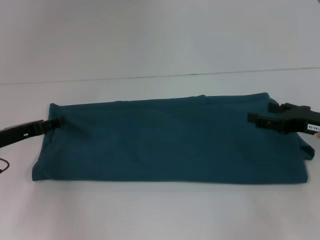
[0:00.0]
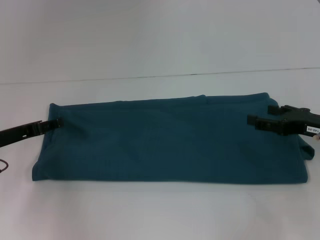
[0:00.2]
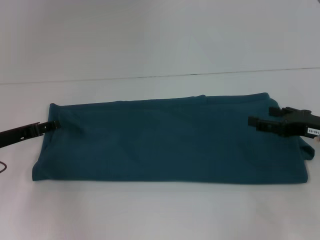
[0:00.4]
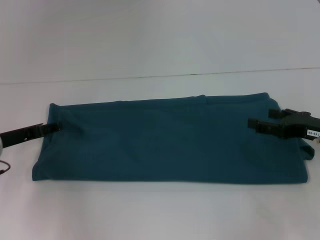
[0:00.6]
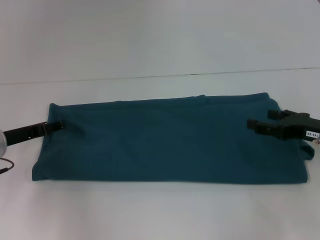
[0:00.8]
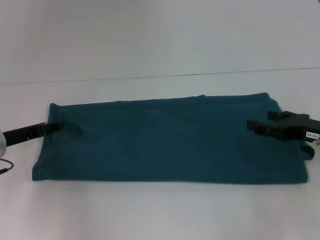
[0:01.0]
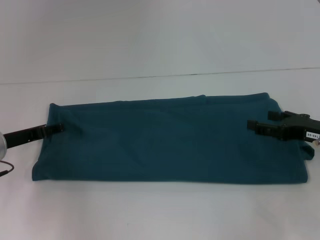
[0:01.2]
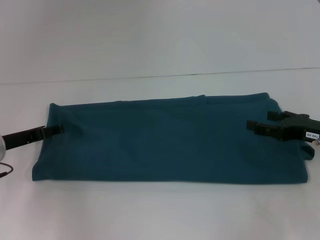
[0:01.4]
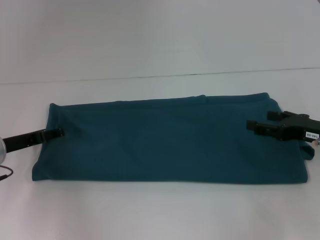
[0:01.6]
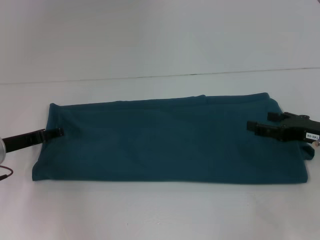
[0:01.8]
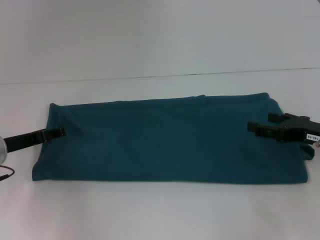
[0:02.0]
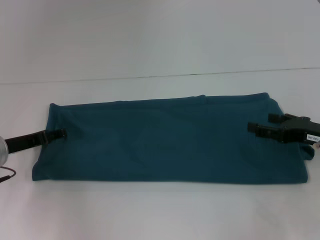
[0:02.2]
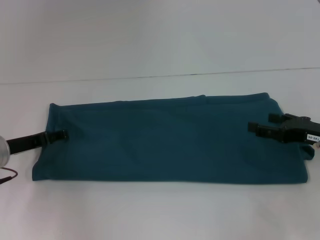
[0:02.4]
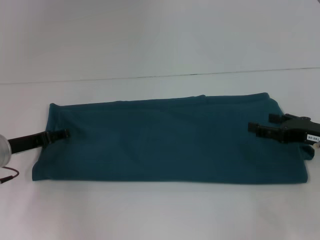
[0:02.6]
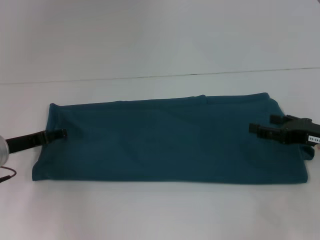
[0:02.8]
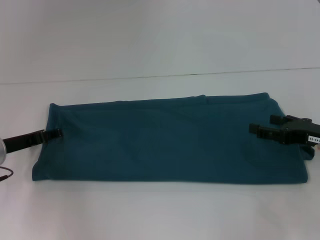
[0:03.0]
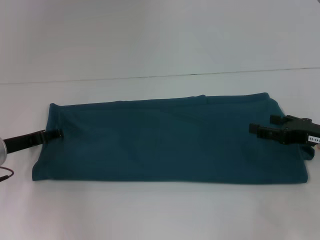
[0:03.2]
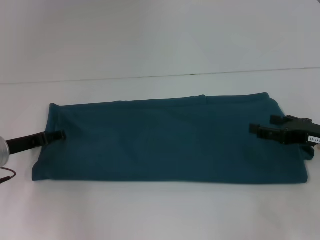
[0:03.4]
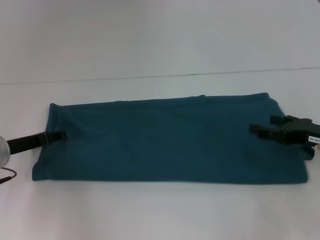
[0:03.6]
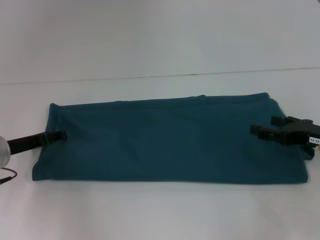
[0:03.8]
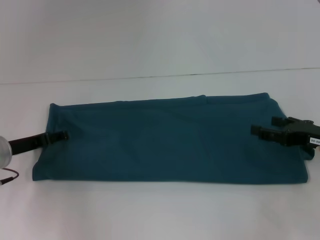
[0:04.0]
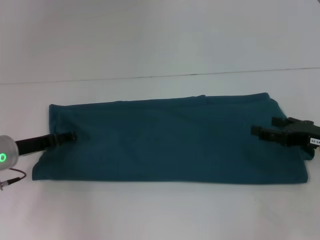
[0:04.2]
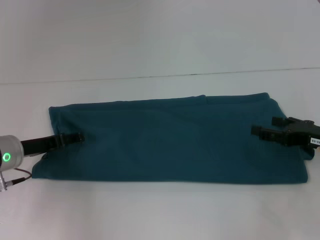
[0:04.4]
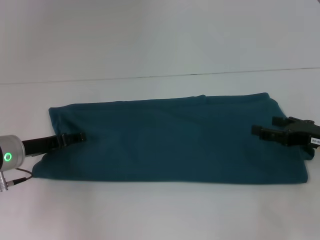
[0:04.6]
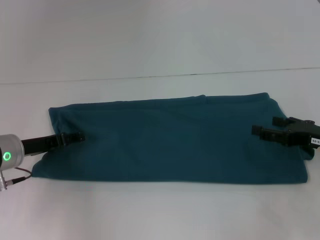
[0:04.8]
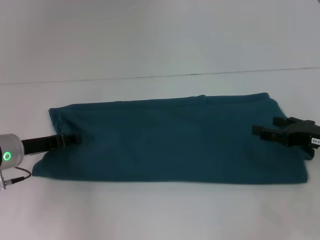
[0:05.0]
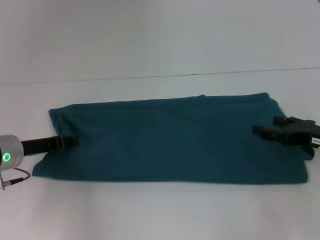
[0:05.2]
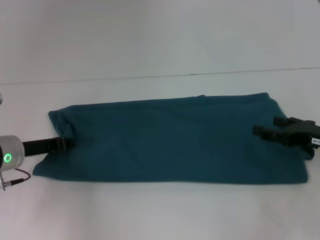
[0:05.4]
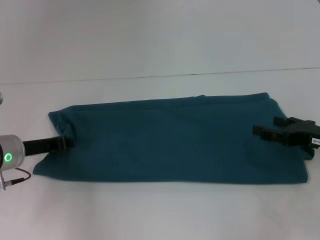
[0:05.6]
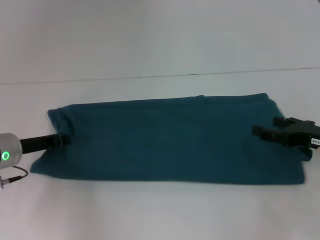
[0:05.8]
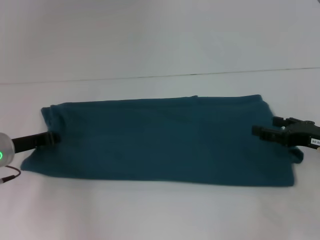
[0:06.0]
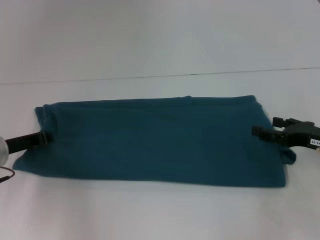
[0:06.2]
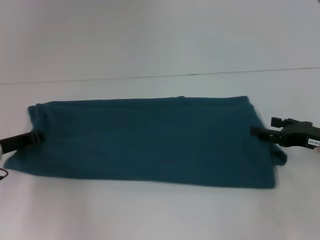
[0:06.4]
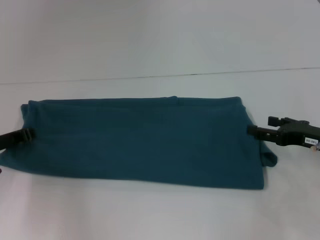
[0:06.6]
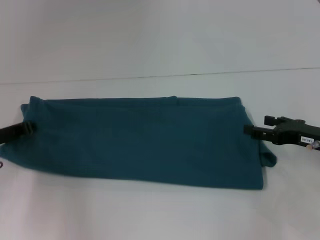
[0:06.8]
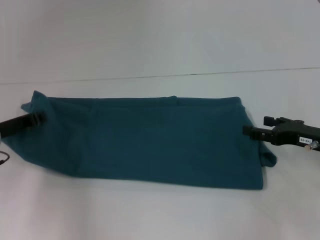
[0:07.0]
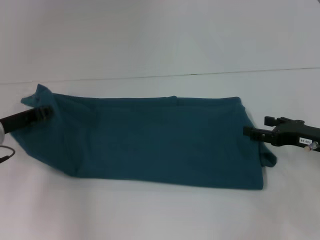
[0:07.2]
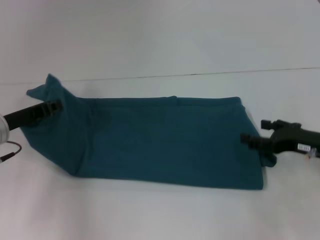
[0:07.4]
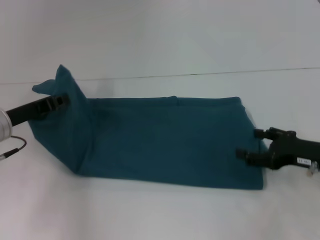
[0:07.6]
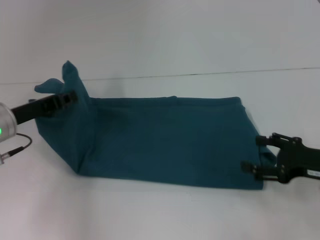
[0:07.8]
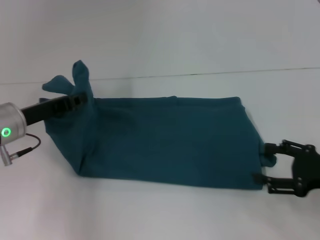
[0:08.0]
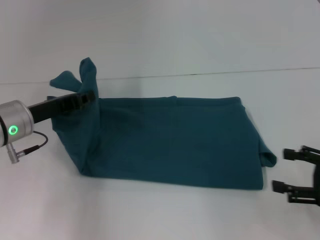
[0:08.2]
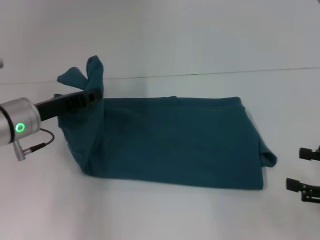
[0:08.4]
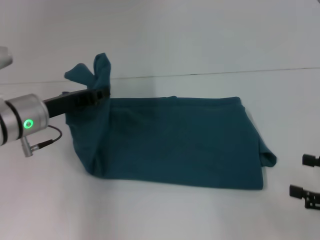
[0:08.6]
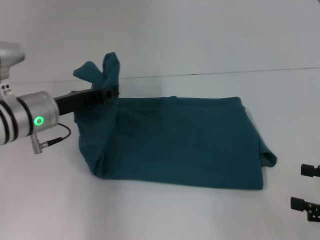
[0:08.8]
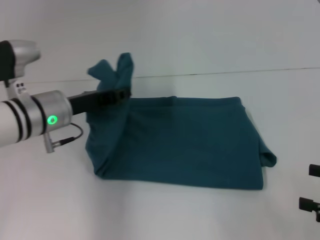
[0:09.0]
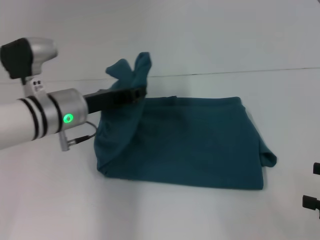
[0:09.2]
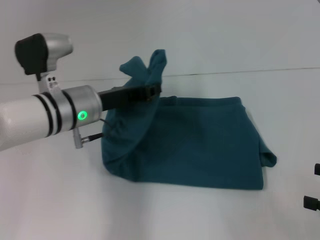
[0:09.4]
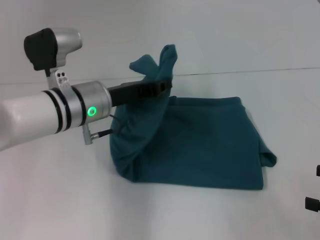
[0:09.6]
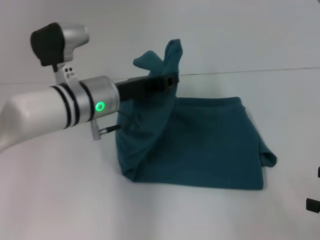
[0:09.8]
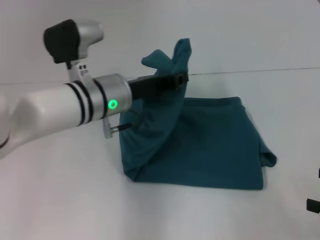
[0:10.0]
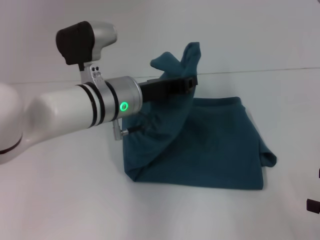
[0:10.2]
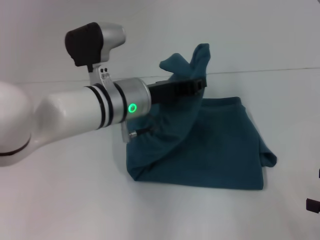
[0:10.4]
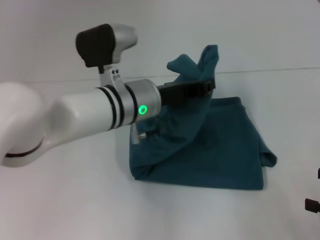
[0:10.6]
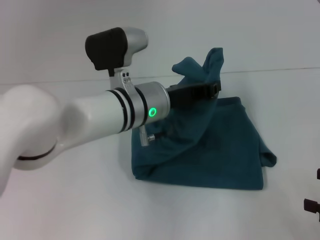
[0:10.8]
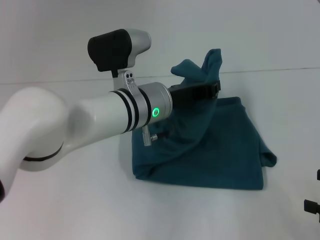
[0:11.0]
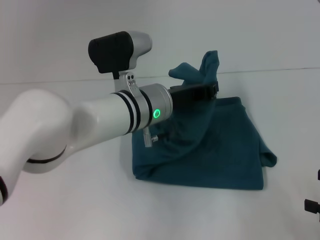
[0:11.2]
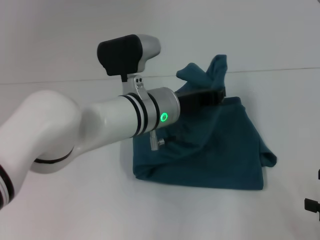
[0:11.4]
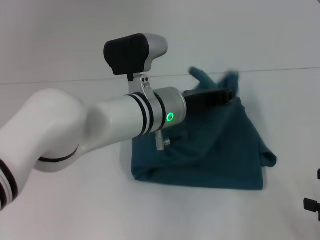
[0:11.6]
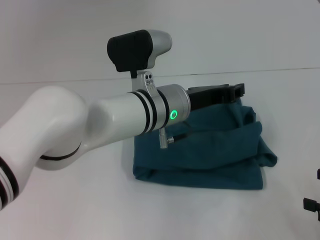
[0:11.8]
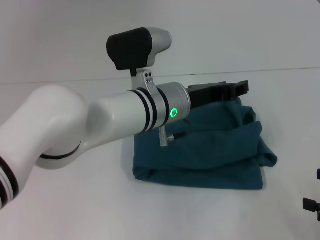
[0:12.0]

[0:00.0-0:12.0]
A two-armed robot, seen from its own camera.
0:00.0 to 0:01.6: There are only small adjustments of the grippers.
0:01.6 to 0:03.0: Neither gripper changes place.
0:03.0 to 0:04.4: There are only small adjustments of the grippers.
0:04.4 to 0:06.0: The left gripper closes.
0:06.0 to 0:07.6: The grippers stay close to where they were, moving slightly.
0:07.6 to 0:09.0: The left gripper goes about 10 cm to the right. Meanwhile the right gripper is displaced backward and to the right by approximately 15 cm.
0:09.0 to 0:10.4: The left gripper travels to the right by roughly 10 cm.
0:10.4 to 0:12.0: The left gripper travels to the right by about 5 cm.

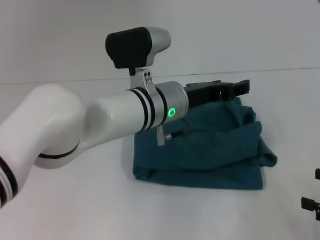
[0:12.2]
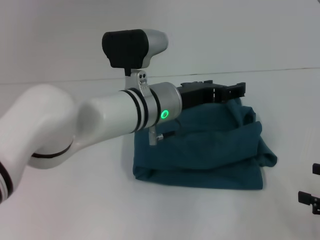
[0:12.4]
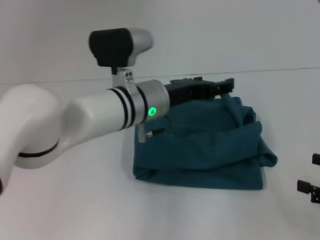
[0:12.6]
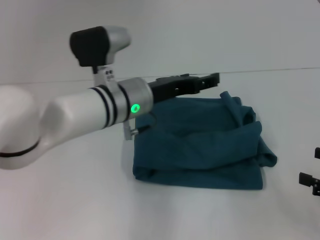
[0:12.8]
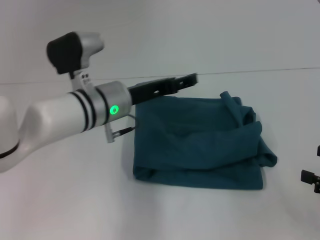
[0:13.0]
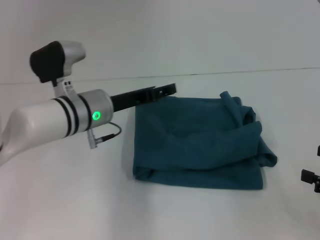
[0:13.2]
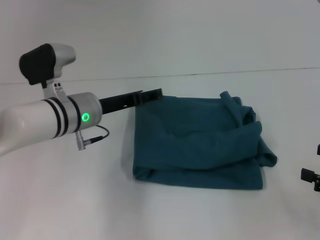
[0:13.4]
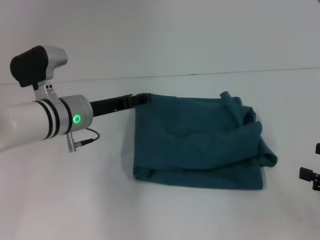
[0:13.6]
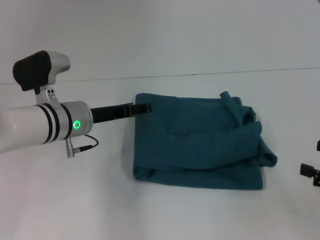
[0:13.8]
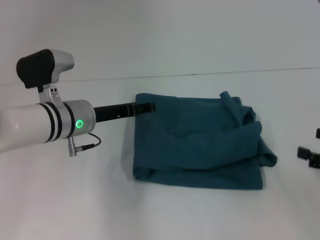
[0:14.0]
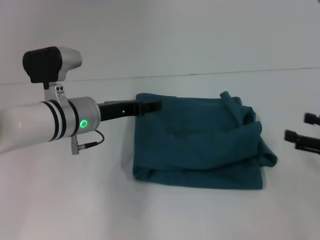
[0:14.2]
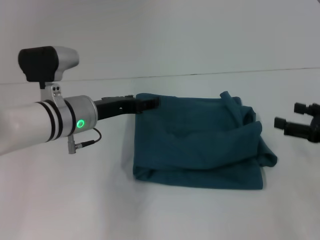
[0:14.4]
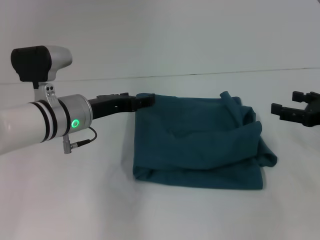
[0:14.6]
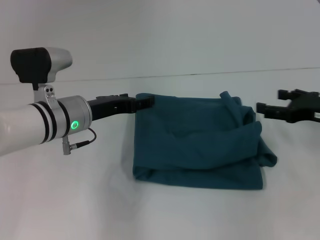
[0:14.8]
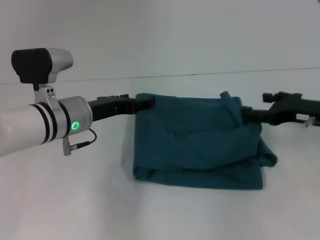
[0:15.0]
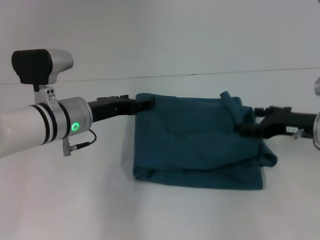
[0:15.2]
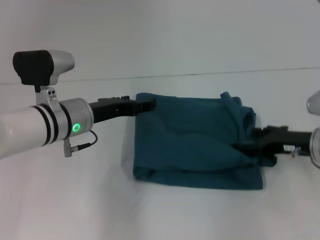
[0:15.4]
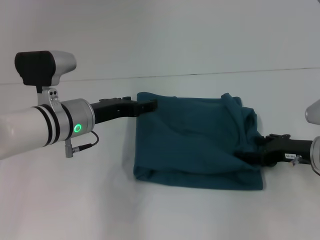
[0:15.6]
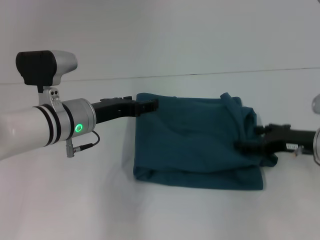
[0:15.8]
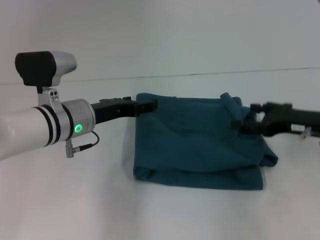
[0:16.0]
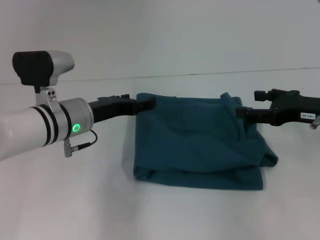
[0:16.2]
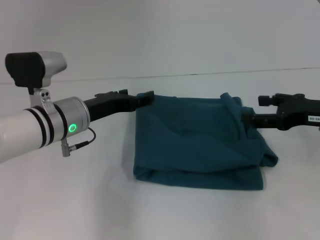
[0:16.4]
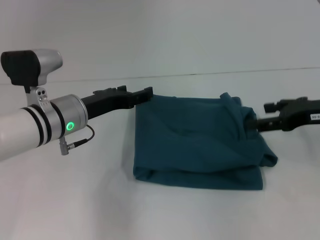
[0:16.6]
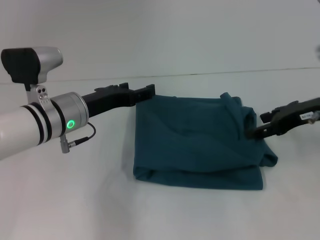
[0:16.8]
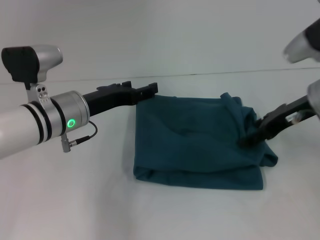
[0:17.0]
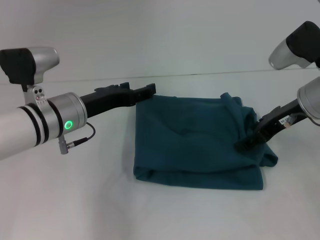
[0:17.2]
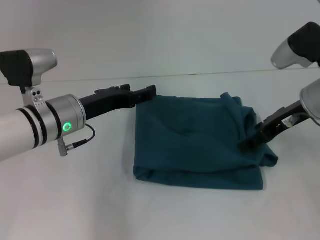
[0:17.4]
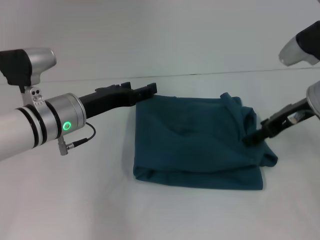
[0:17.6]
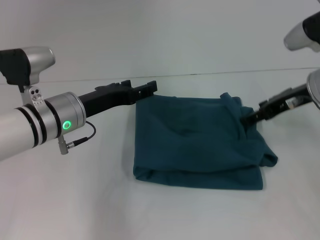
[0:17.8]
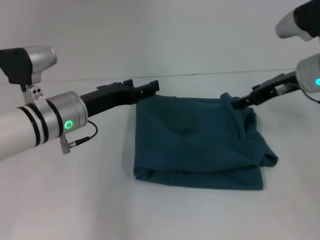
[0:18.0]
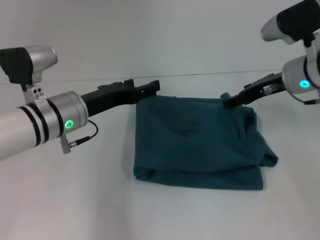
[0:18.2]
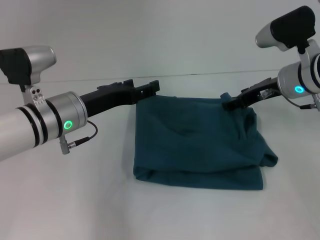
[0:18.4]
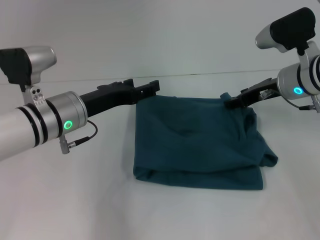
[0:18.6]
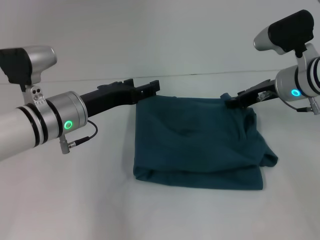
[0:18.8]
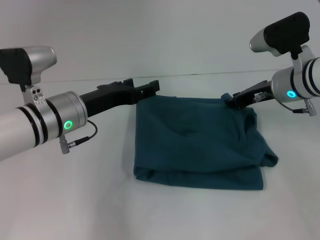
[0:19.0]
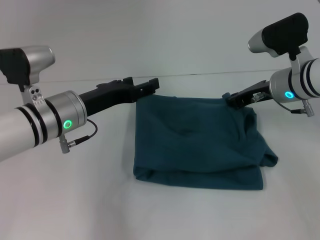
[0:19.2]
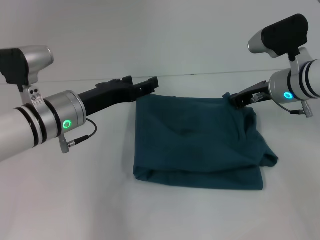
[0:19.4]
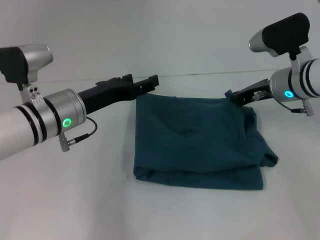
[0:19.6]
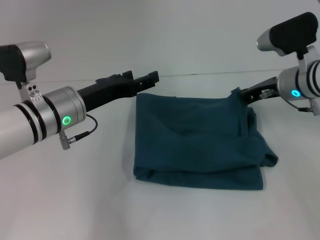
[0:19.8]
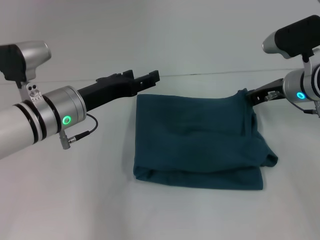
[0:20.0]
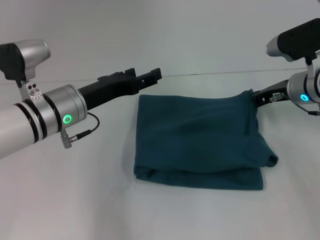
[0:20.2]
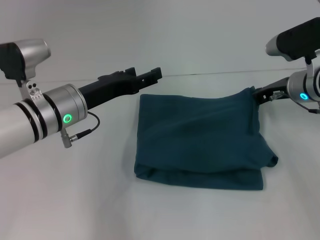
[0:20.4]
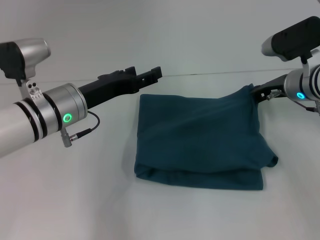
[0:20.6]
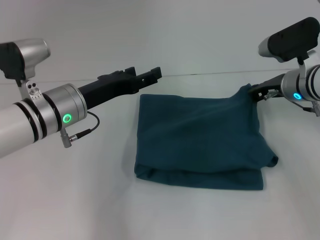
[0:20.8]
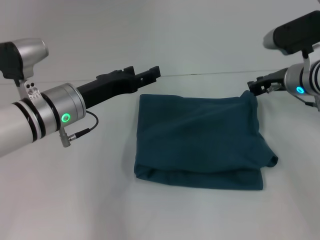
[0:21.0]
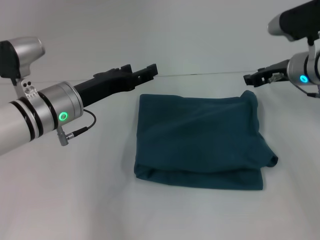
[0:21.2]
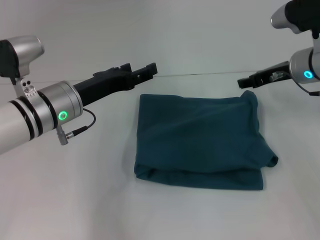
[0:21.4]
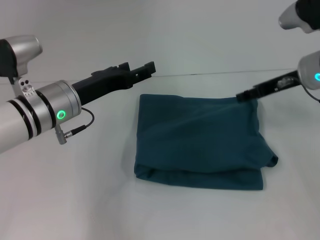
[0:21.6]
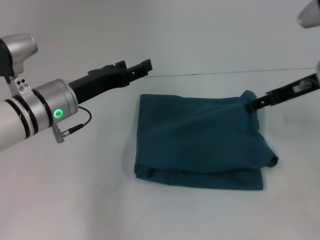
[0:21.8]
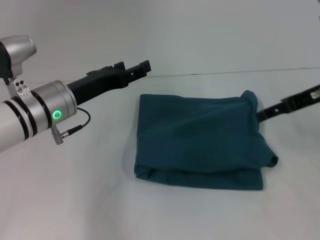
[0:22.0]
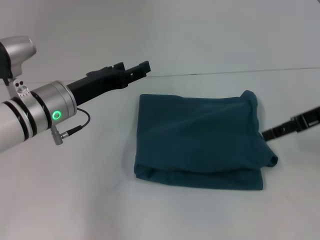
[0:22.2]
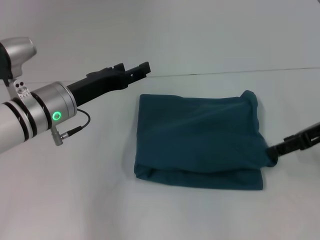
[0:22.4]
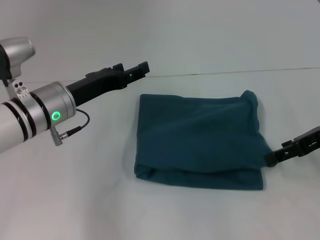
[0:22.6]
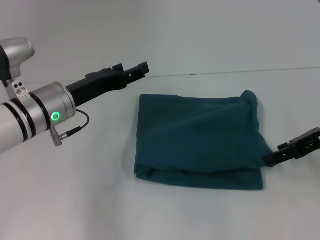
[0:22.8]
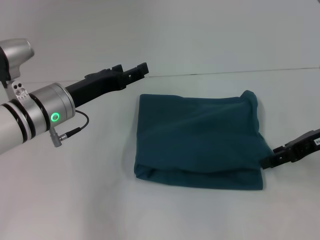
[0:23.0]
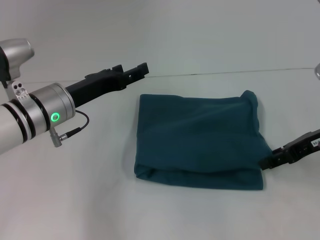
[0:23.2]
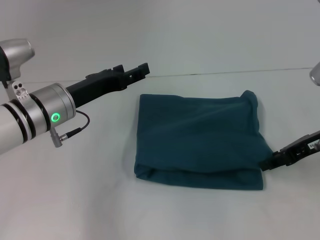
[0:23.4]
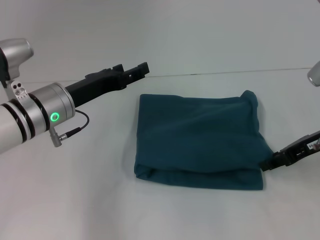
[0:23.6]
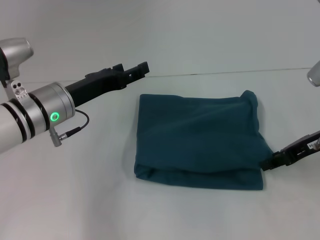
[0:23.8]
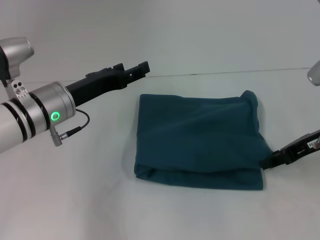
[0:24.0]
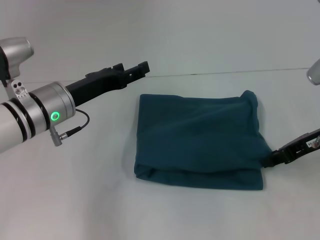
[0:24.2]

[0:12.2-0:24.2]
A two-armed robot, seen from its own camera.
0:12.2 to 0:13.8: The left gripper goes roughly 15 cm to the left, and opens its fingers.
0:13.8 to 0:15.2: The right gripper shifts approximately 15 cm forward and to the left.
0:15.2 to 0:16.6: The right gripper shifts some 5 cm upward.
0:16.6 to 0:18.2: The right gripper heads forward and to the left, covering approximately 10 cm.
0:18.2 to 0:19.8: The right gripper closes its fingers.
0:19.8 to 0:21.2: The grippers move only a little.
0:21.2 to 0:22.6: The right gripper shifts approximately 10 cm backward and to the right, and opens up.
0:22.6 to 0:24.2: The right gripper closes its fingers.
